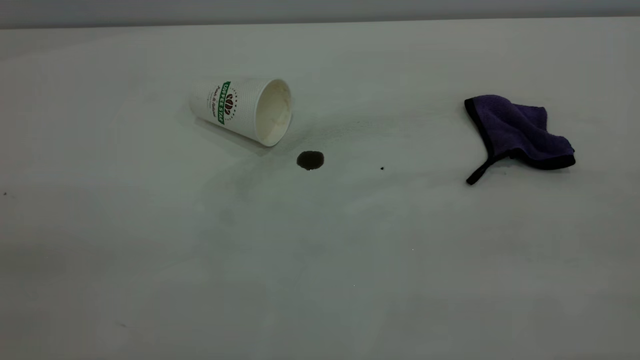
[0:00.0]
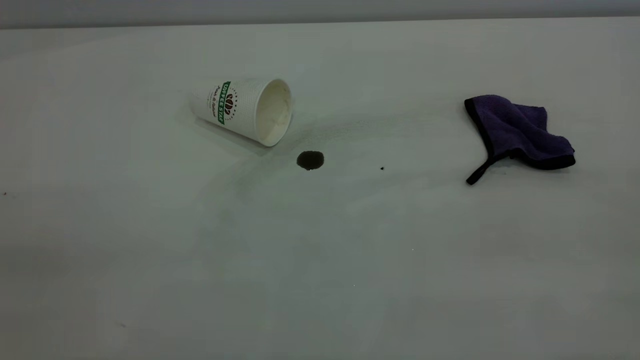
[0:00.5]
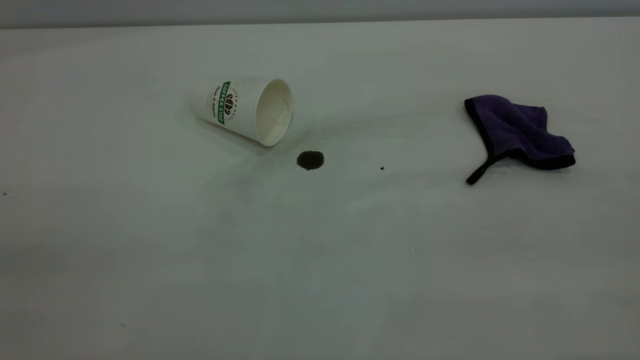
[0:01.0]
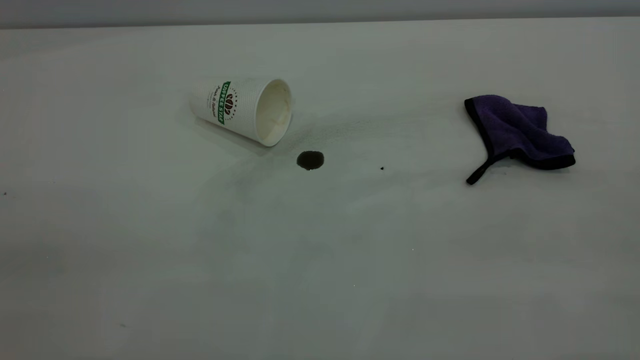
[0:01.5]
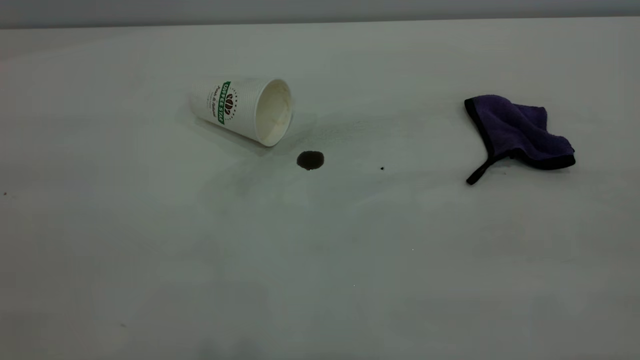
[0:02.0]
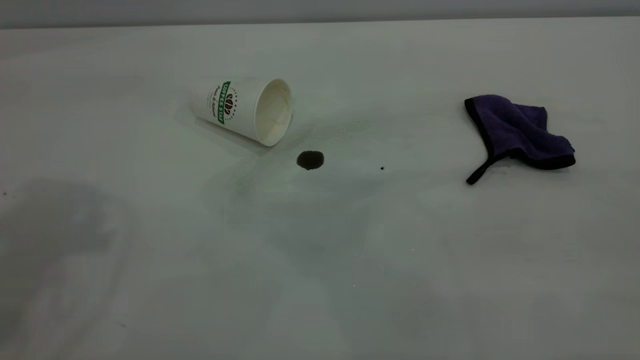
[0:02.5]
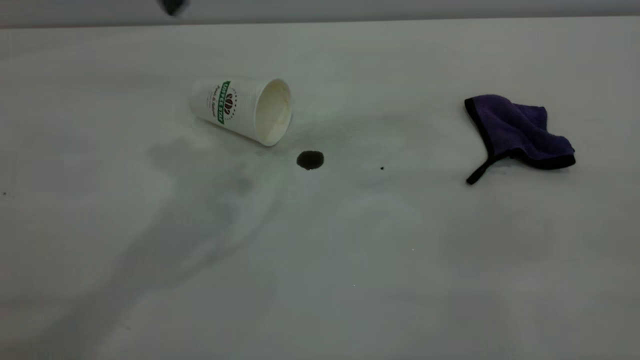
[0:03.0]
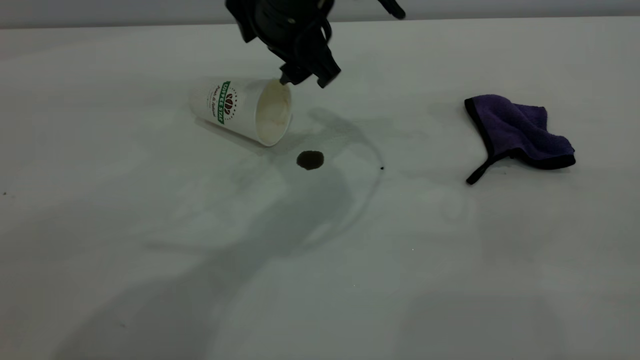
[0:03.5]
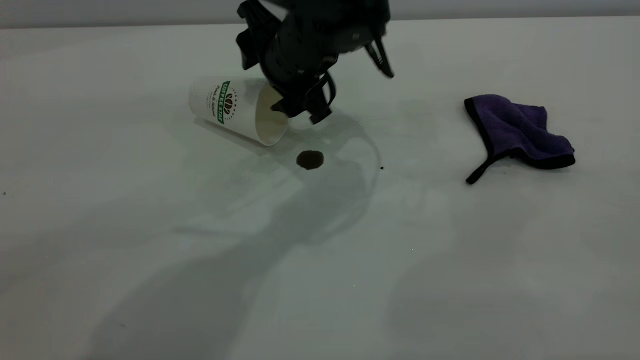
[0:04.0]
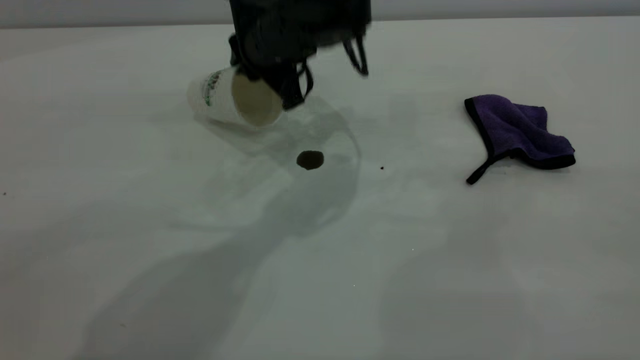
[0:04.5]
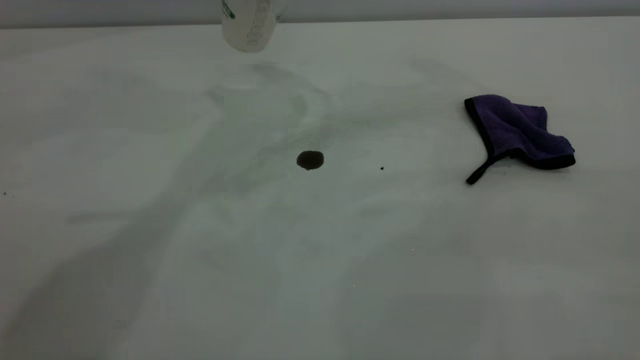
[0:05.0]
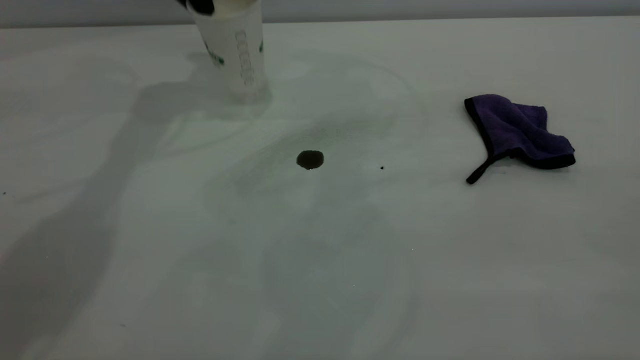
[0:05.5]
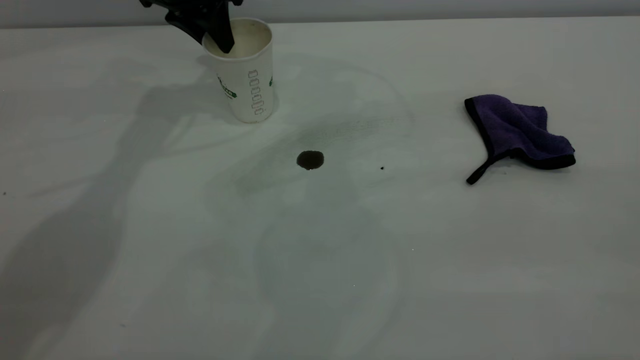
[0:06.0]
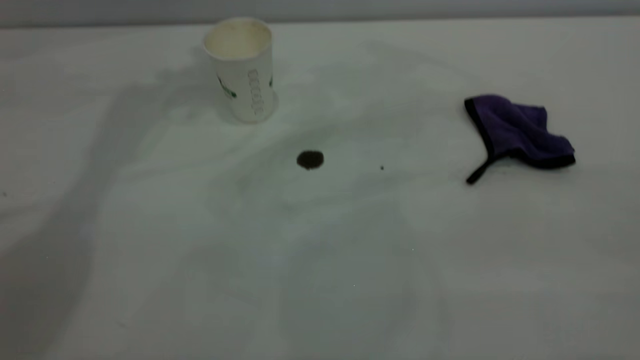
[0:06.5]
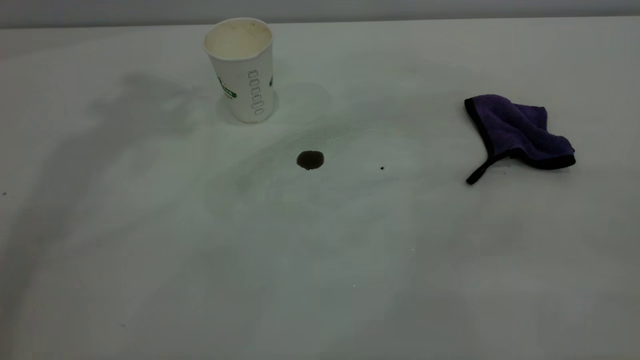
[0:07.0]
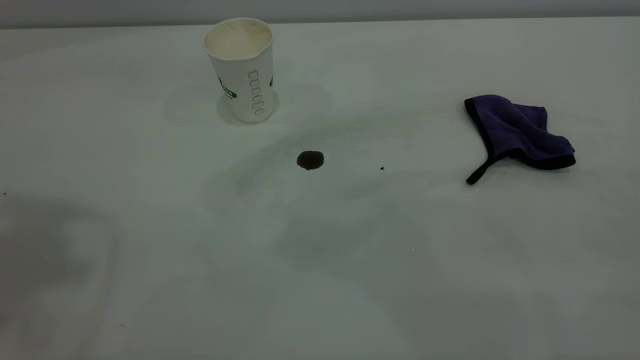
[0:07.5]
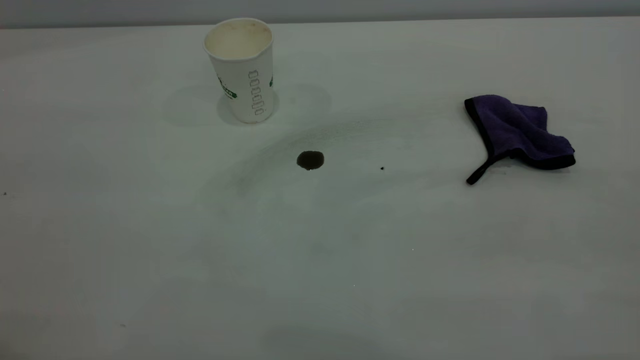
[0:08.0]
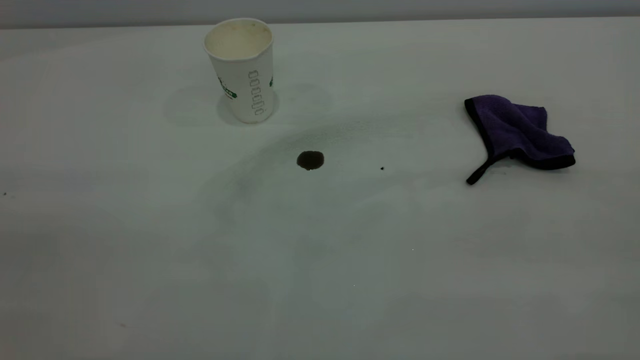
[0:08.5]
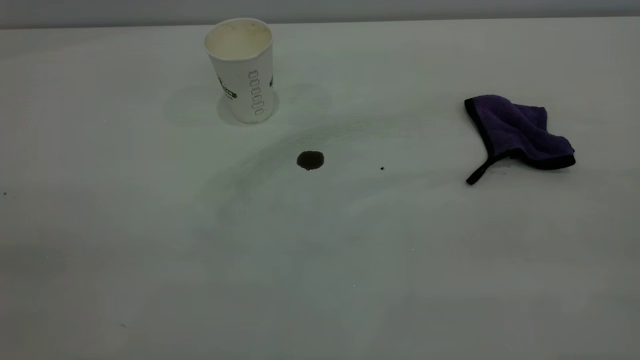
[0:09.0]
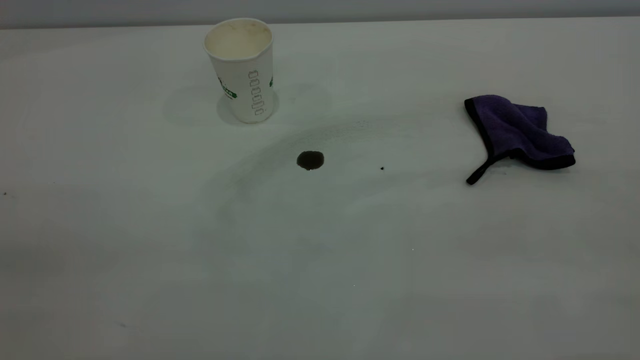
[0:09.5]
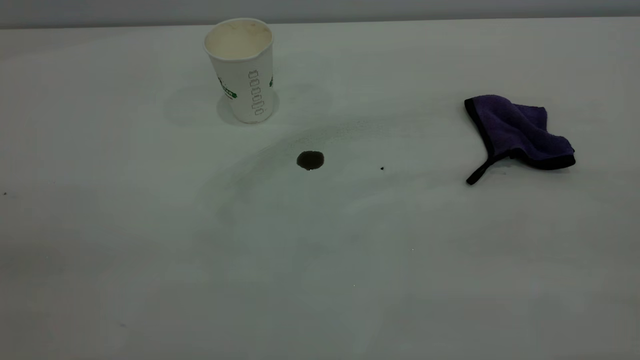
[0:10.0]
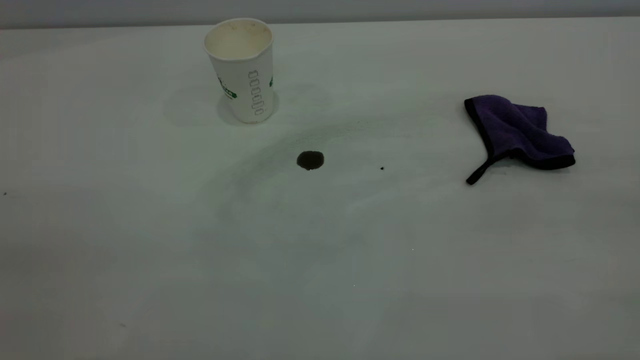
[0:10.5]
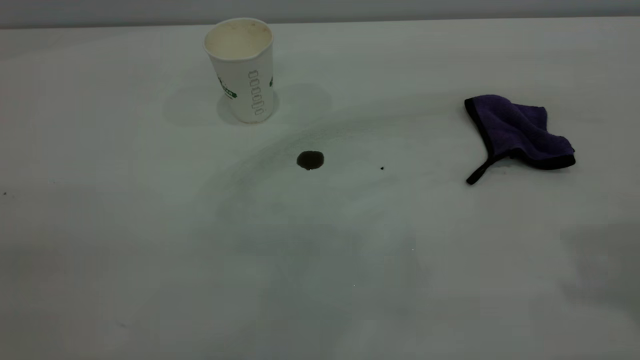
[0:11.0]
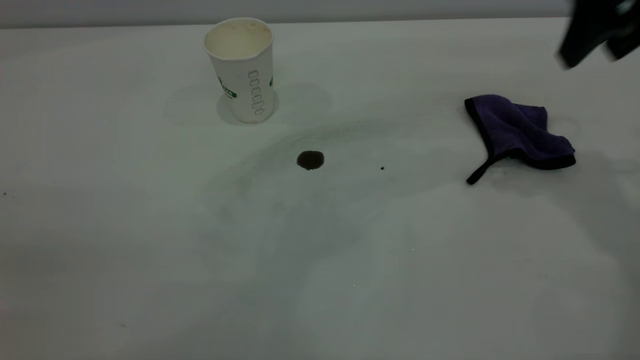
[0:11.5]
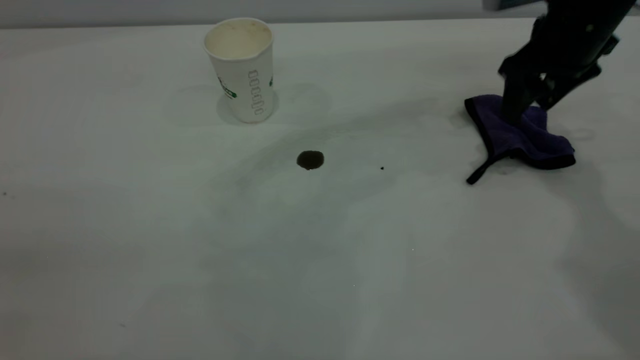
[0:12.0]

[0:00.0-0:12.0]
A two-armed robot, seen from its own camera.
Task of the whole recording: the left gripper pick up the fallen cup and place it upright, the right gripper grasp the purple rag and wipe the coffee stain on the table, the right gripper put the purple rag back in its original position.
Step, 0:00.0 to 0:06.0: Stand the paper cup upright.
0:02.0 to 0:04.0: The left gripper is displaced forward, to the right and downward by approximately 50 cm, and opens.
0:04.0 to 0:06.0: The left gripper goes roughly 20 cm to the left, forward and upward, and closes its fingers.
0:06.0 to 0:08.0: The left gripper goes some 50 cm backward and upward, and opens, then closes again.
0:10.0 to 0:12.0: The right gripper goes about 50 cm forward and downward.

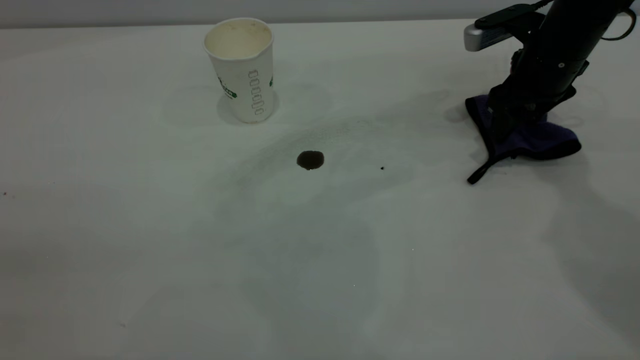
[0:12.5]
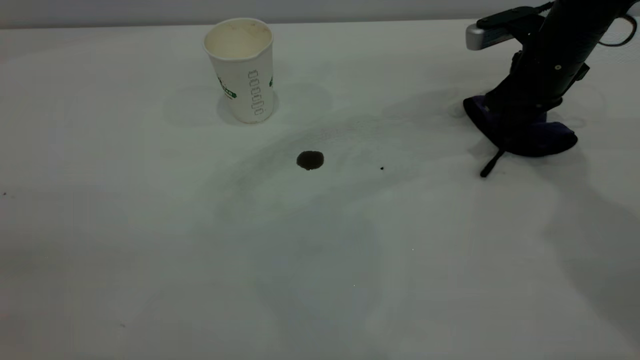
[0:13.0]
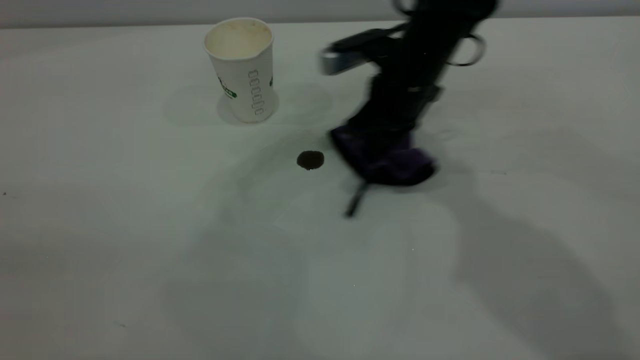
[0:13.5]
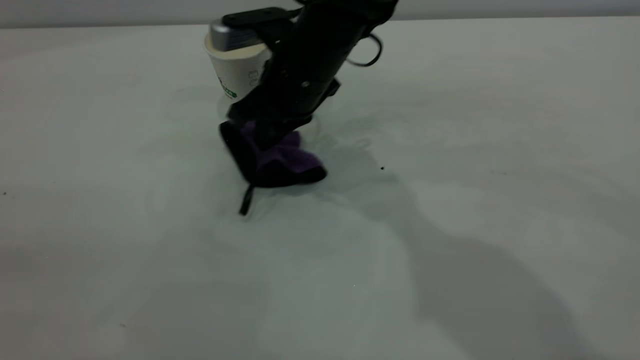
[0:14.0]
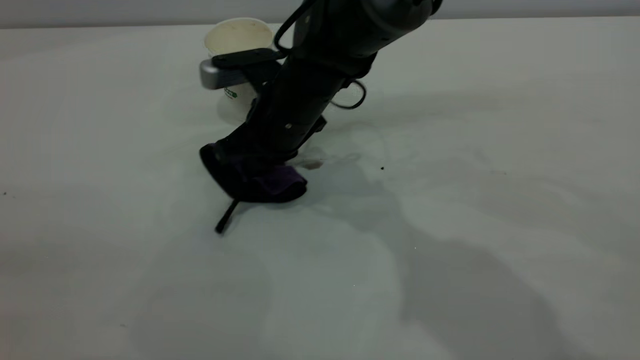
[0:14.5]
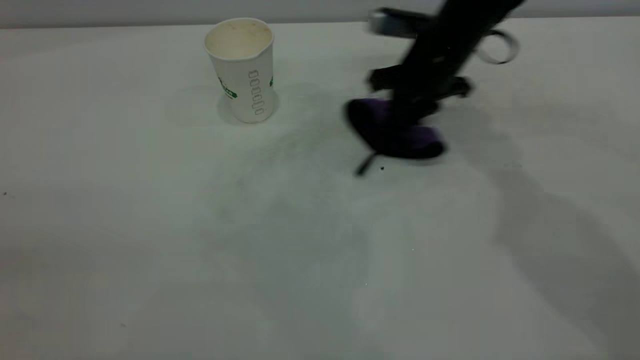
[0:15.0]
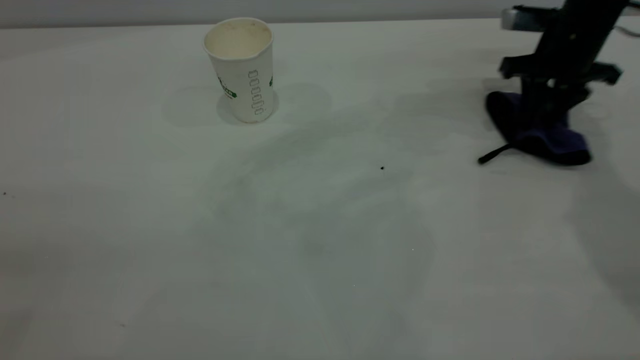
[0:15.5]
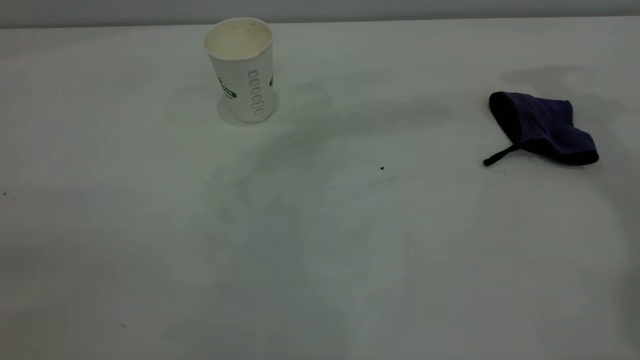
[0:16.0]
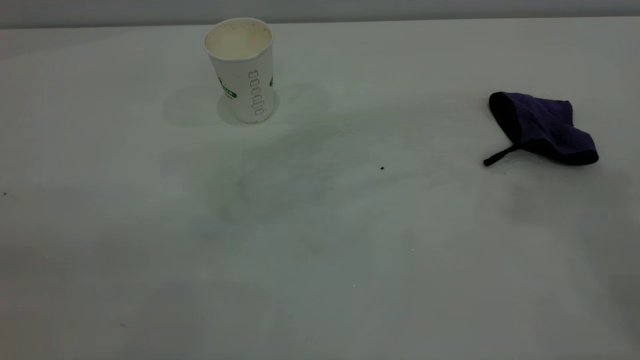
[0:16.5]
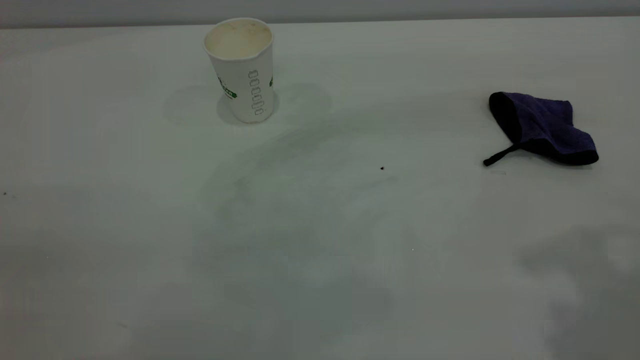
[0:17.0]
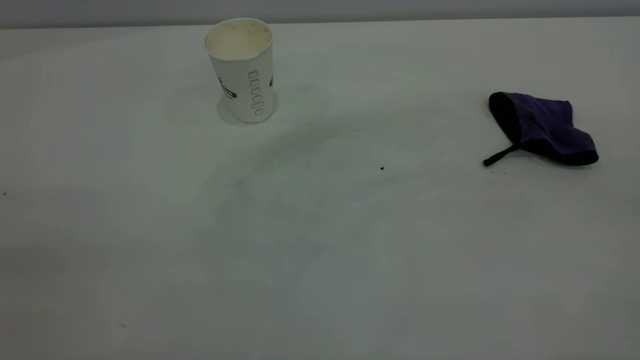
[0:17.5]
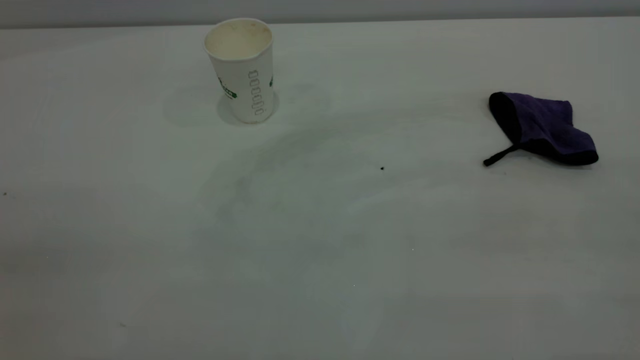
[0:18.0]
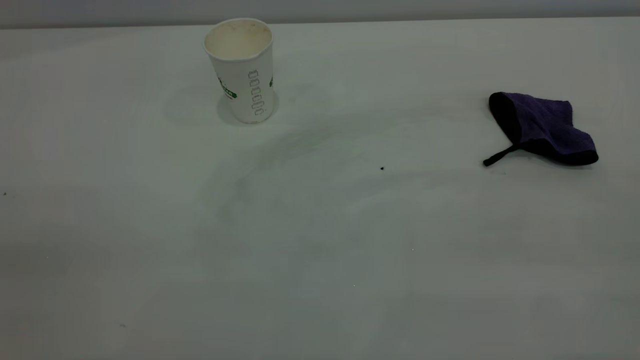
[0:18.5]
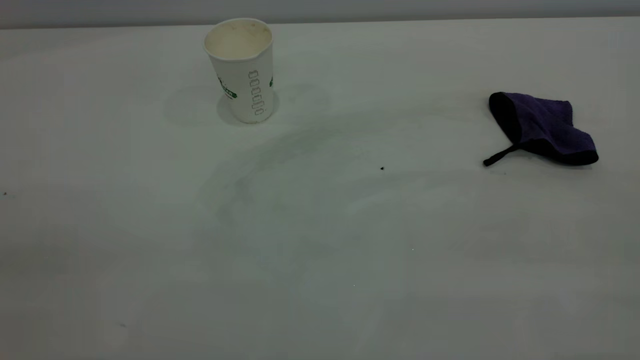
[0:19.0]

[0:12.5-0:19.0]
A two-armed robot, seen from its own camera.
Task of the whole recording: the left gripper pick up the fallen cup and place it upright, the right gripper grasp the purple rag and wipe the coffee stain on the table, the right gripper put the purple rag back in its original position.
Step, 0:12.5 to 0:15.5: Wipe the stains off the table with a rag.
0:12.5 to 0:14.5: The right gripper is displaced to the left by roughly 30 cm, and closes up.
0:14.5 to 0:17.0: The right gripper shifts roughly 50 cm upward, to the right and backward, and opens up.

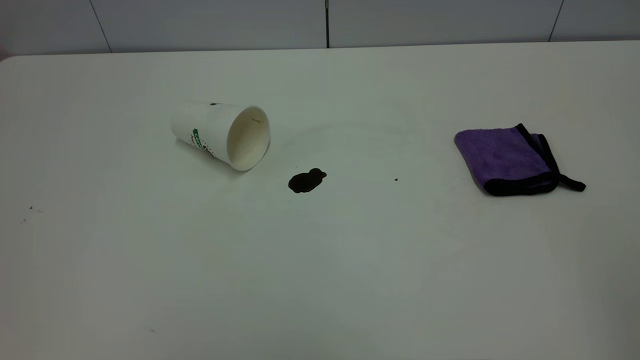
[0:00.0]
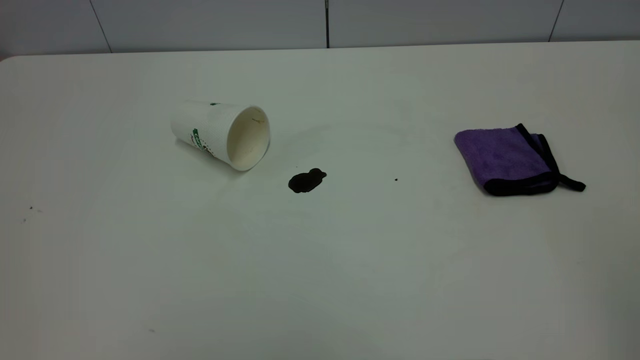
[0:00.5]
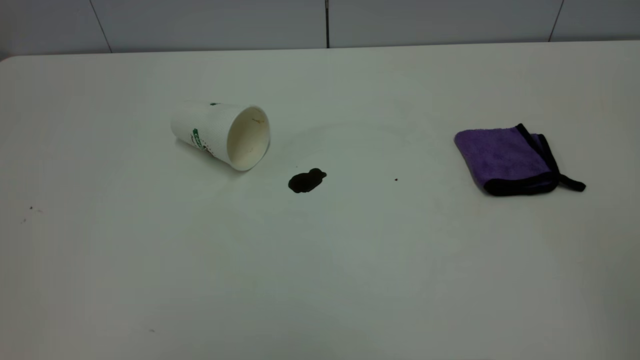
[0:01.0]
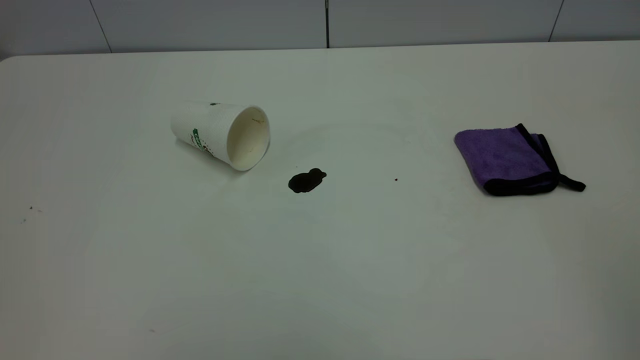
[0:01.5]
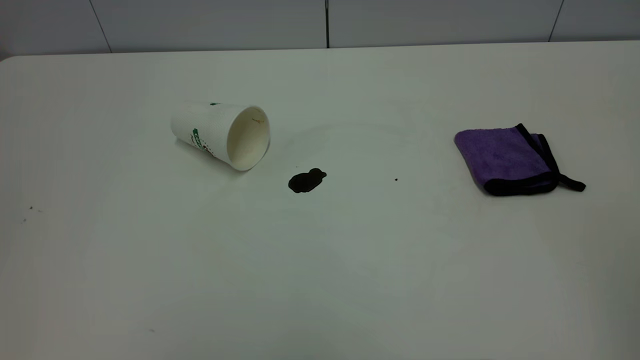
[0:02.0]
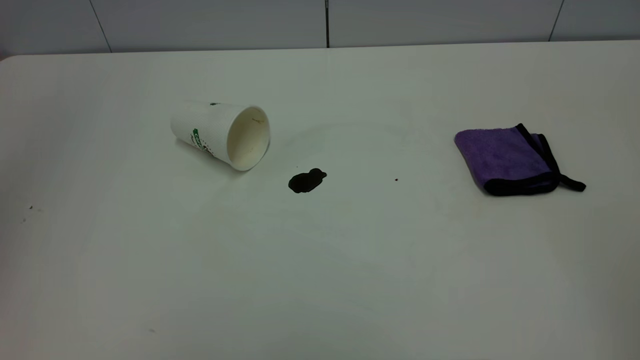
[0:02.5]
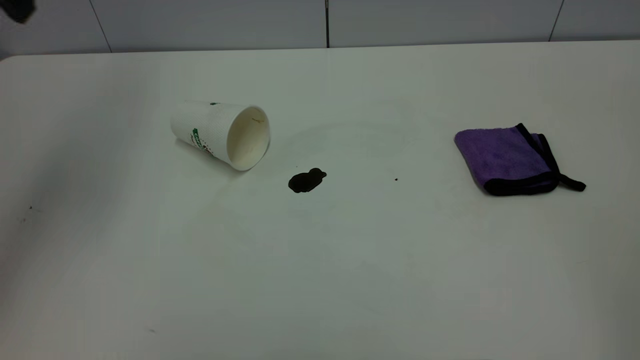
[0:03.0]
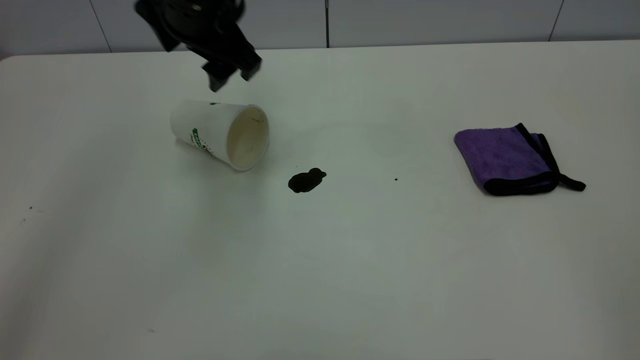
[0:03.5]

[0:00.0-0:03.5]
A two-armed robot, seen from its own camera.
Task of the whole recording: the left gripper pick up the fallen cup and place it upright, the right gripper grasp the purple rag and wipe the coffee stain on the table, the right gripper put the purple rag back in its original position.
0:02.0 to 0:03.5: The left gripper goes roughly 40 cm forward, to the right and downward, and opens.
